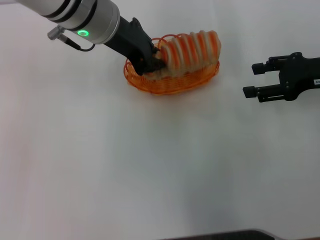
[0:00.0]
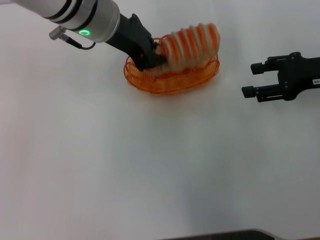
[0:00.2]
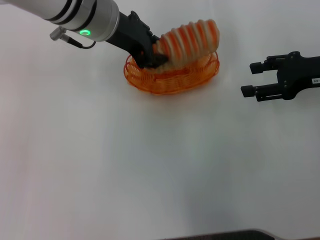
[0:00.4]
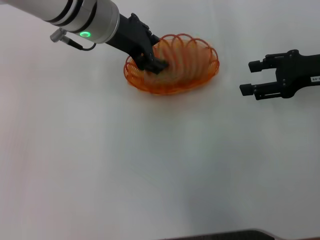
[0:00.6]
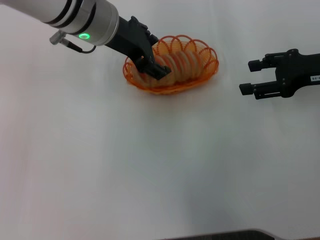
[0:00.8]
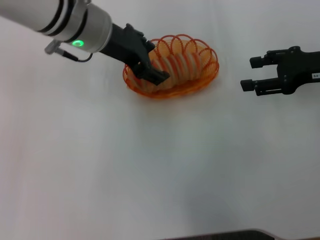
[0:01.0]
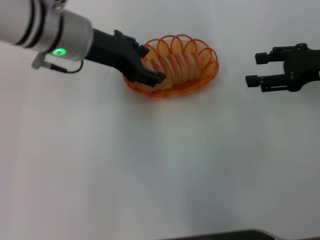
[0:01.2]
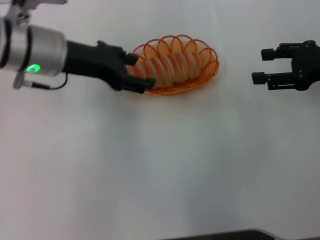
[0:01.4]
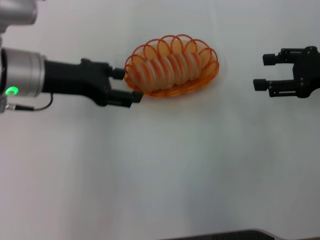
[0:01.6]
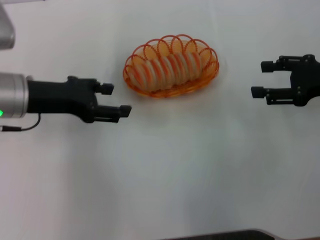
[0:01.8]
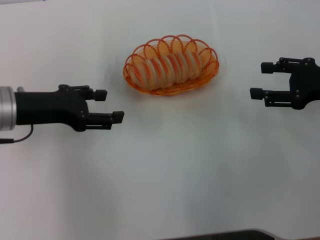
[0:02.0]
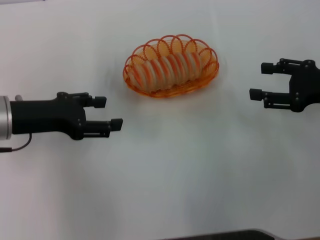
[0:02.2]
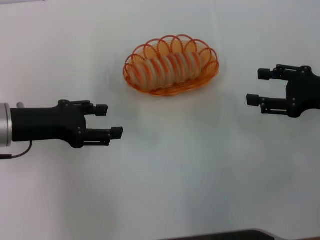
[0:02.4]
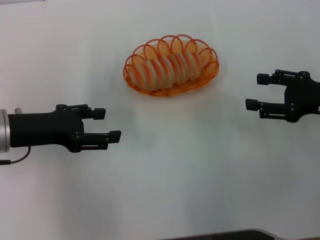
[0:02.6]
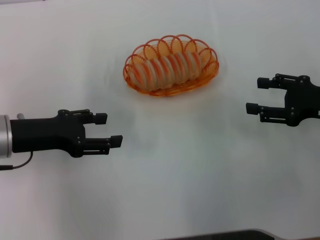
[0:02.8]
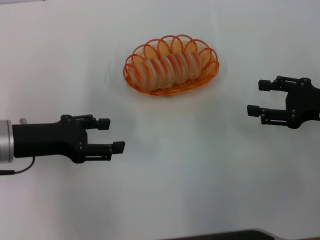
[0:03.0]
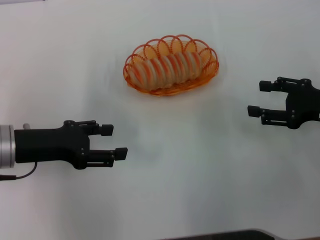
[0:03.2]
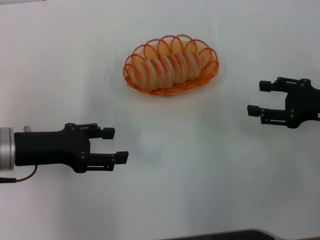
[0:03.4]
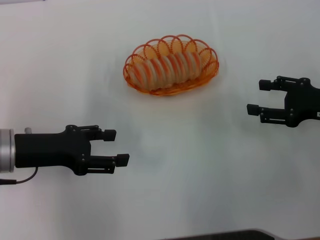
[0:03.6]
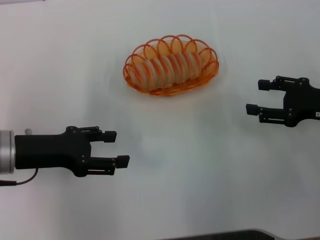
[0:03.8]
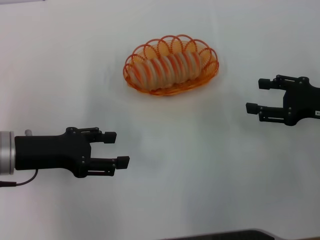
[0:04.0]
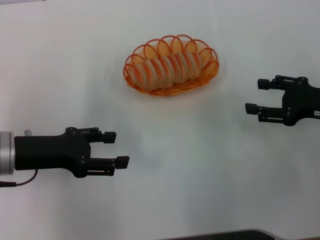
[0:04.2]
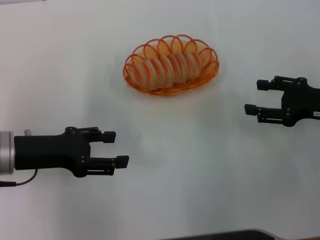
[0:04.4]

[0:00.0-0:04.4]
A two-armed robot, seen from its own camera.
0:00.0 to 0:01.4: The left gripper heads to the left, covering some 10 cm, and opens up.
0:01.4 to 0:03.0: The right gripper moves downward, roughly 5 cm; the left gripper shifts about 15 cm backward, to the left and downward.
0:03.0 to 0:04.4: Neither gripper changes place.
